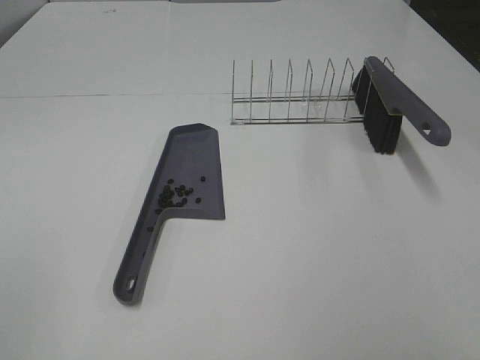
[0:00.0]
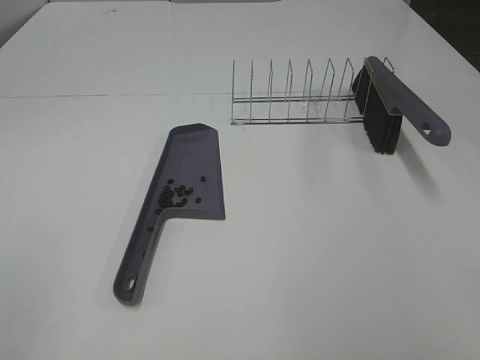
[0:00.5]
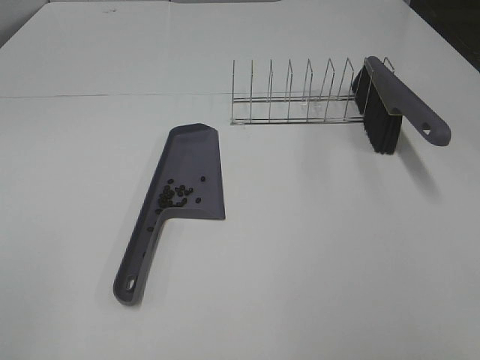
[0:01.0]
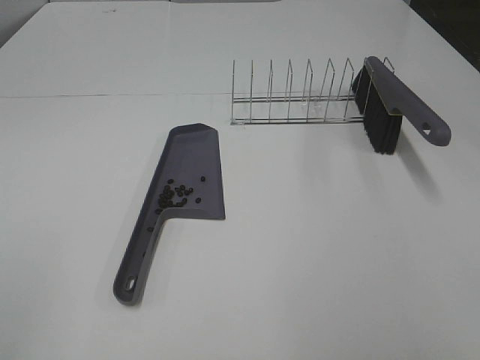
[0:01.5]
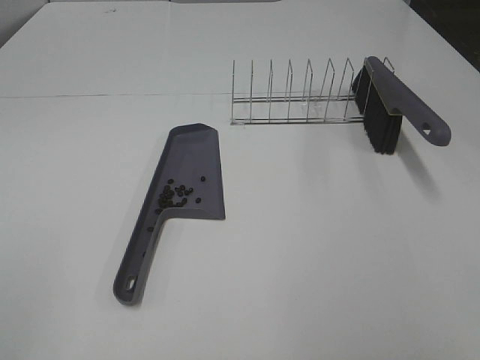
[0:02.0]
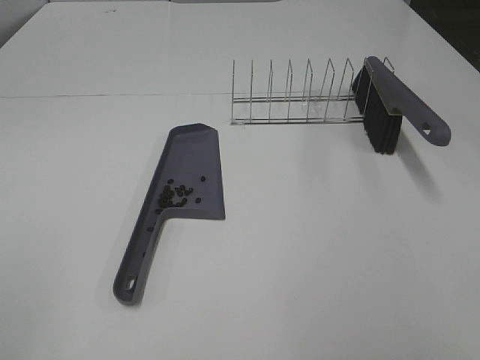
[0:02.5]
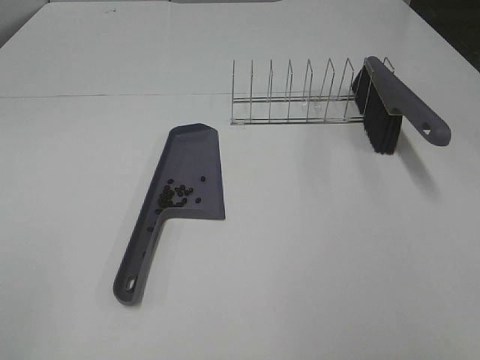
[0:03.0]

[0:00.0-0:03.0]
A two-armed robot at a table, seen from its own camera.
Task of the whole recording: Sweep Coffee Bean.
0:01.5 to 0:03.0: Both grippers stay put.

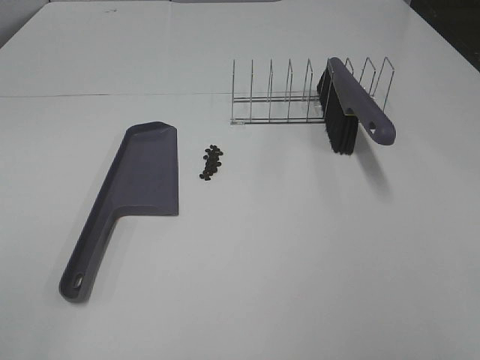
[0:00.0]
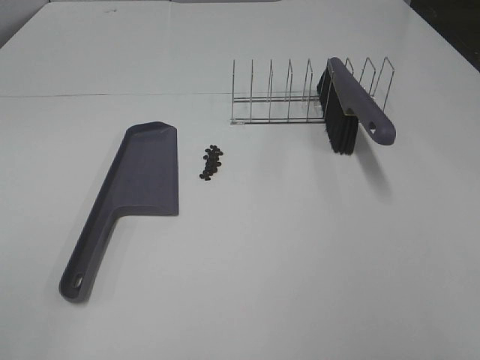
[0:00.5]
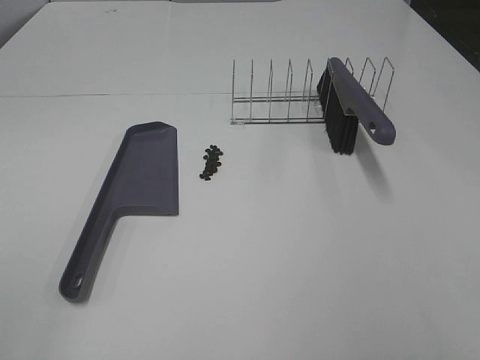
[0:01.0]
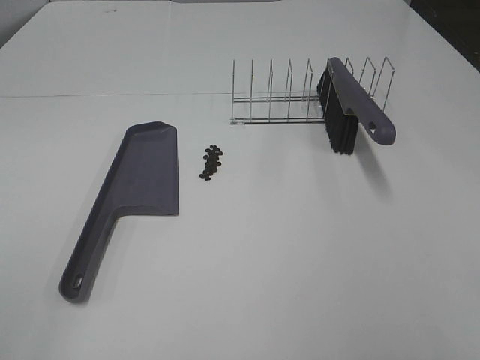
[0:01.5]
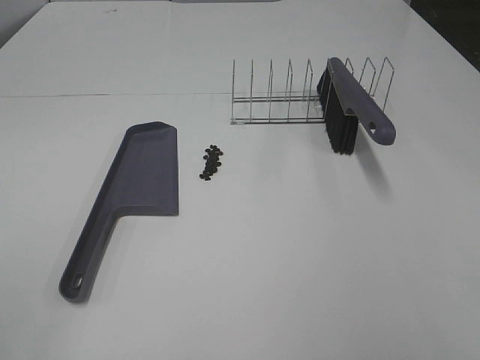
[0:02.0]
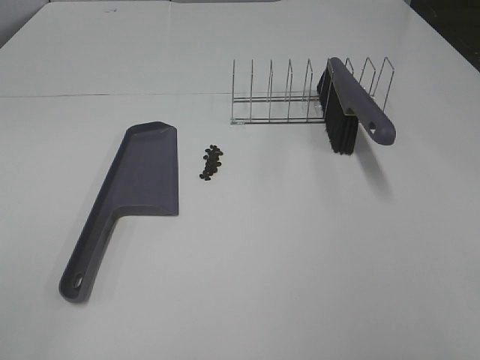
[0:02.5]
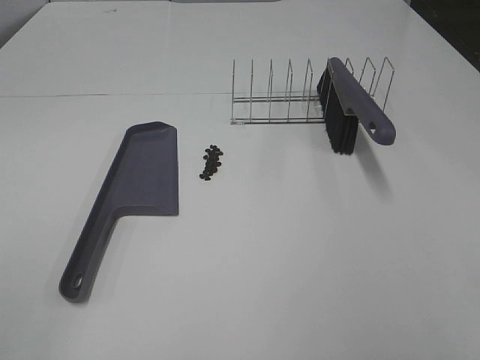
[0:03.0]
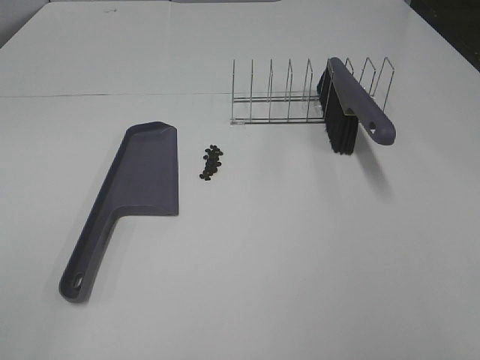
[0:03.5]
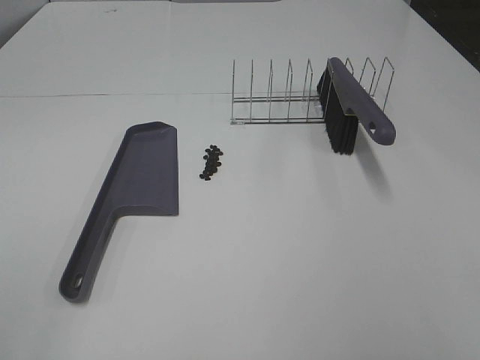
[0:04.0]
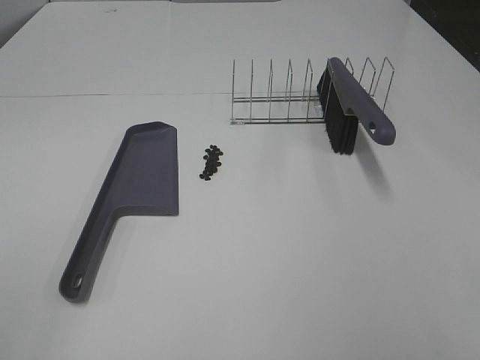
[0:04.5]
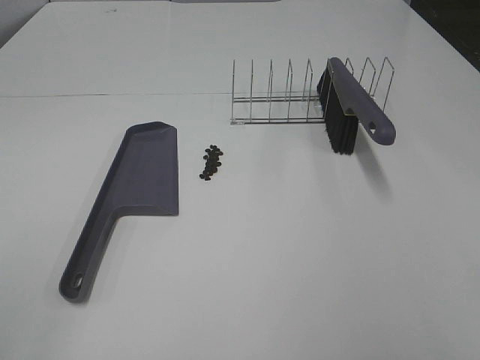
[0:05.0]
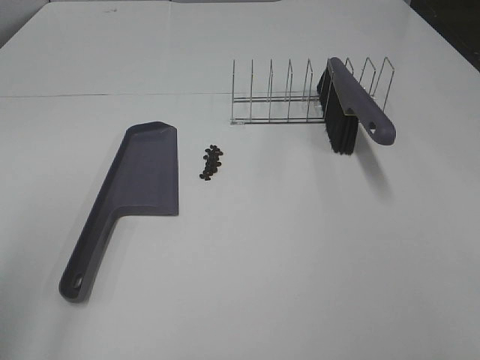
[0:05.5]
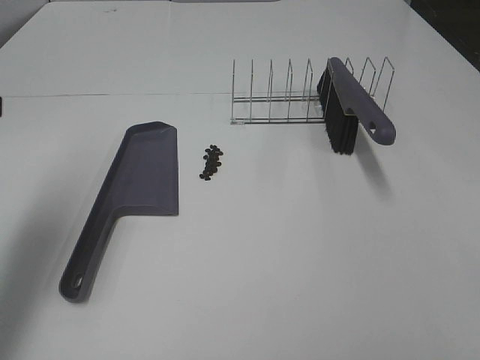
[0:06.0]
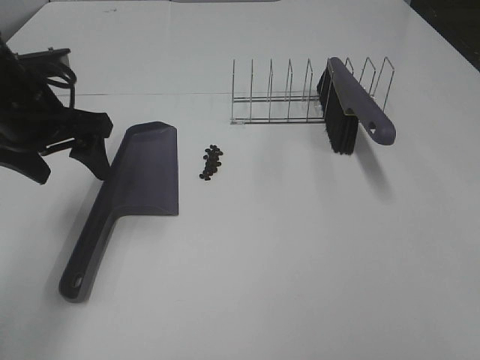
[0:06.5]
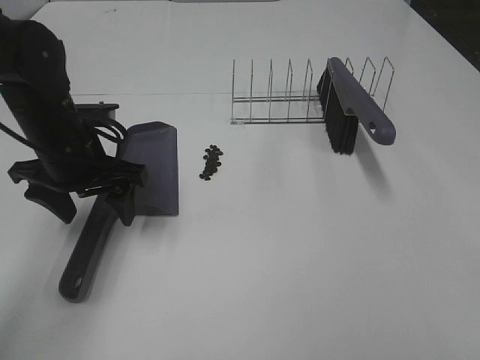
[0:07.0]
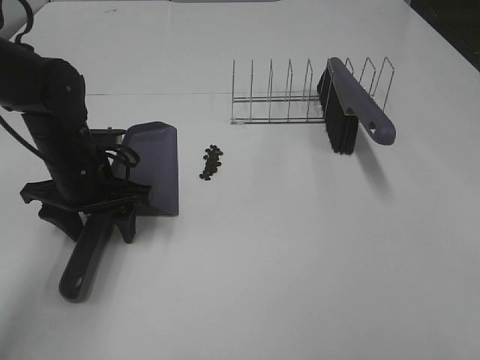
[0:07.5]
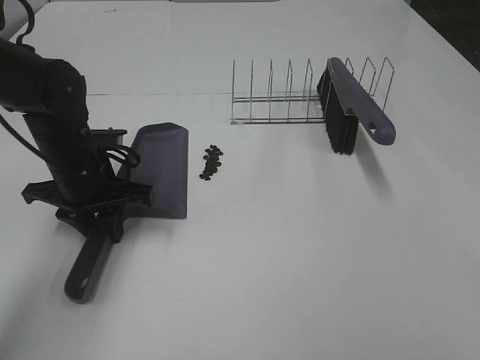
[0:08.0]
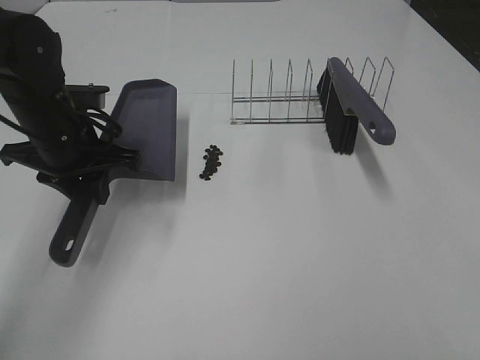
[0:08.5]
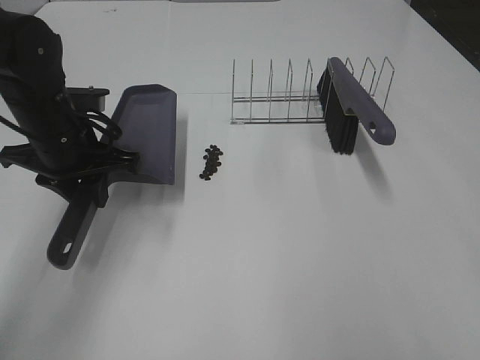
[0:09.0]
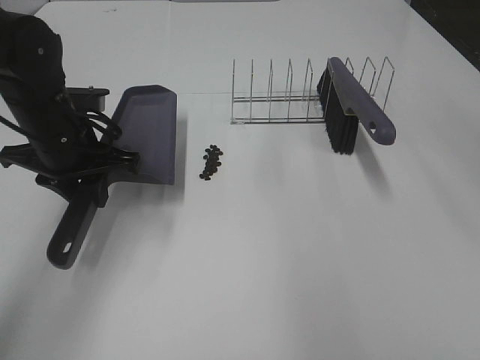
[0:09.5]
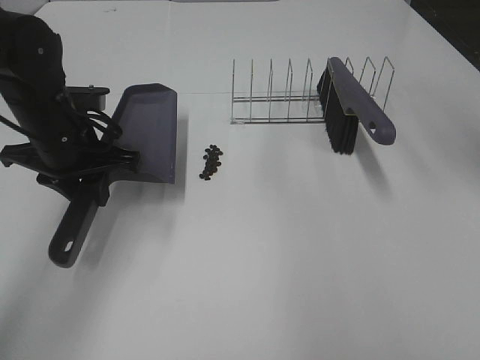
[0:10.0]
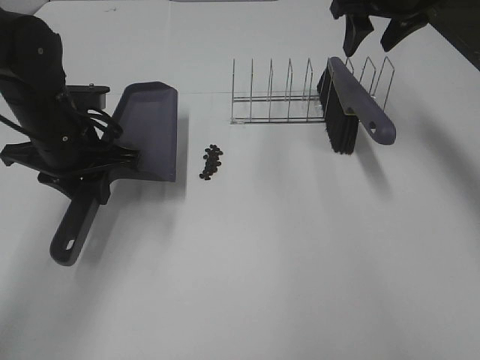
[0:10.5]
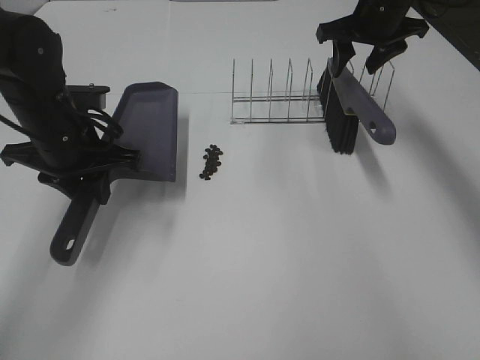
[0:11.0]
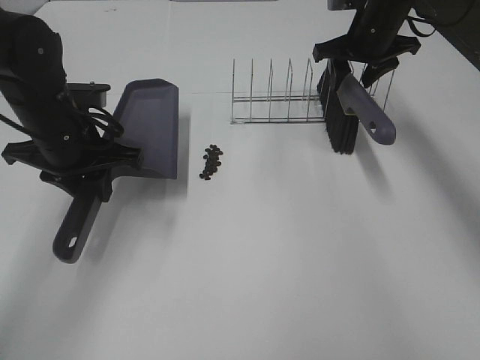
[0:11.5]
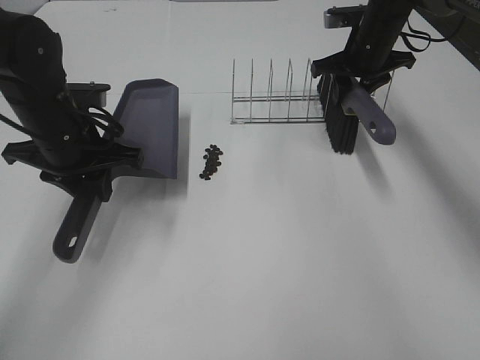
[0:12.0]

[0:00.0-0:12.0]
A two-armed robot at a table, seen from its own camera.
Task of the whole recording: Sweep Coffee Bean.
Step, 0:00.0 to 0:07.5: Left hand: grab the dustpan.
Step, 0:09.0 to 0:12.0: Right hand:grab the broom.
0:00.0 to 0:04.0: Both grippers stay about where they are.
0:04.0 to 0:06.0: The left gripper moves forward, some 25 cm.
0:06.0 to 0:08.0: The left gripper moves downward, to the right and forward, approximately 25 cm, and closes up.
0:08.0 to 0:10.0: The left gripper heads upward, covering roughly 5 cm. The right gripper goes about 40 cm forward.
0:10.0 to 0:12.0: The right gripper is displaced downward and forward by some 25 cm, and closes.

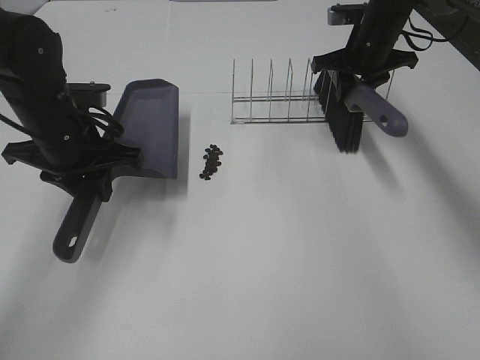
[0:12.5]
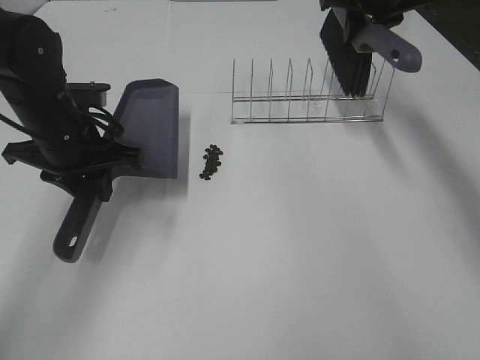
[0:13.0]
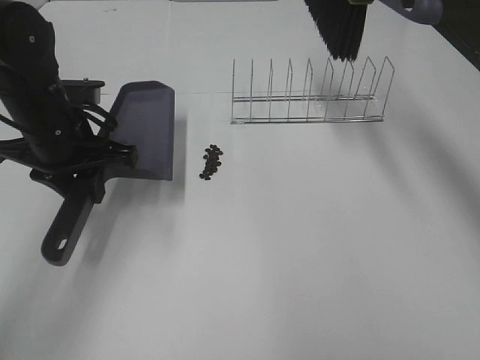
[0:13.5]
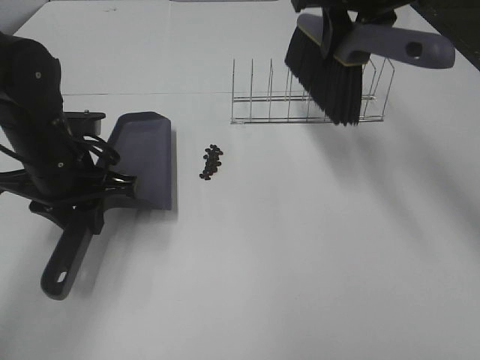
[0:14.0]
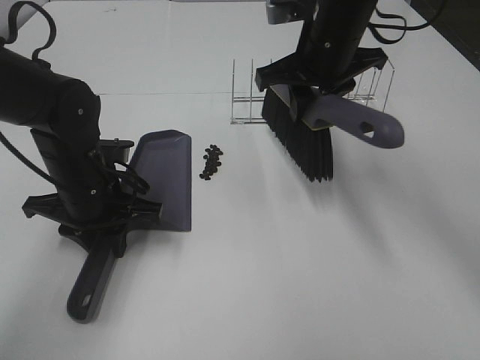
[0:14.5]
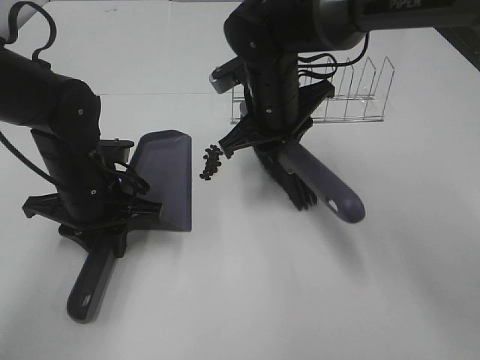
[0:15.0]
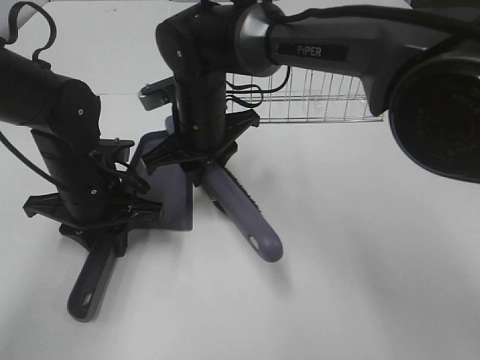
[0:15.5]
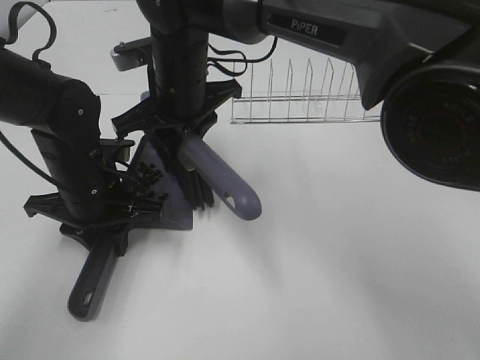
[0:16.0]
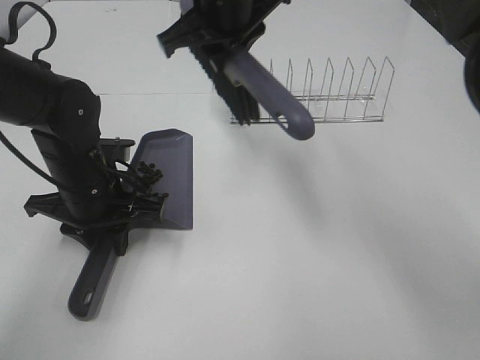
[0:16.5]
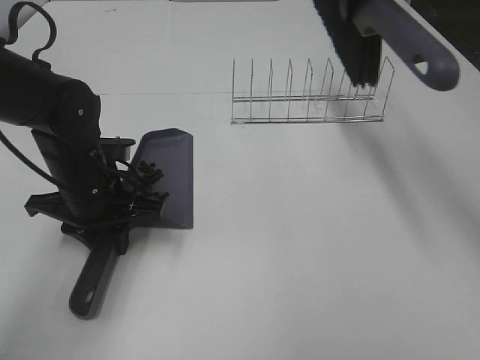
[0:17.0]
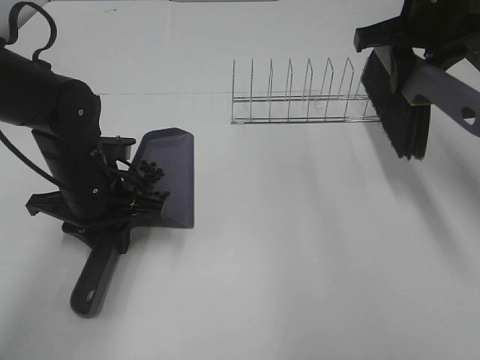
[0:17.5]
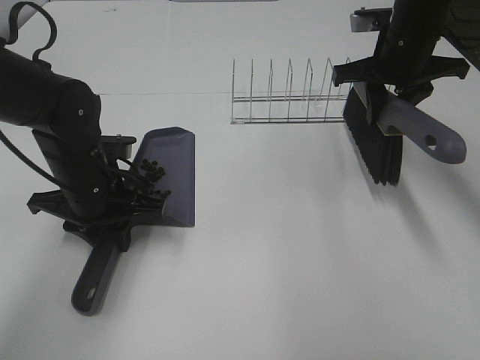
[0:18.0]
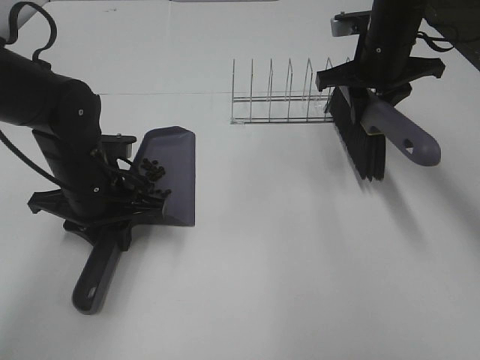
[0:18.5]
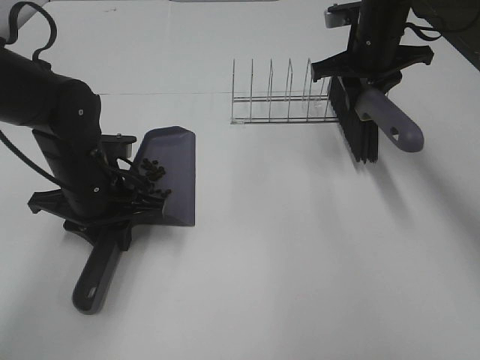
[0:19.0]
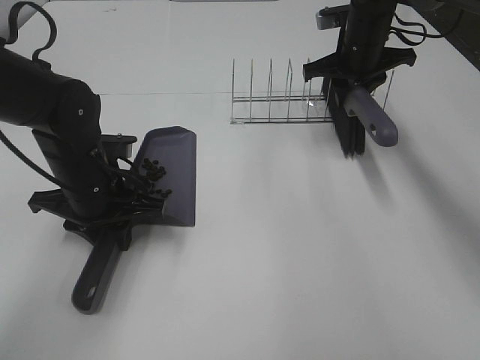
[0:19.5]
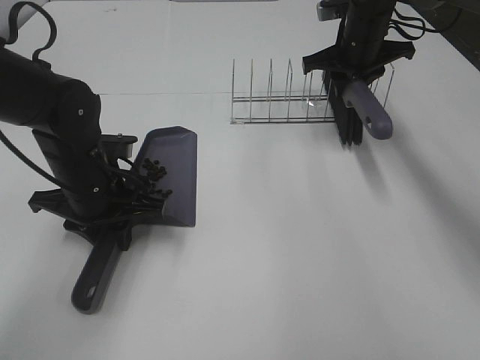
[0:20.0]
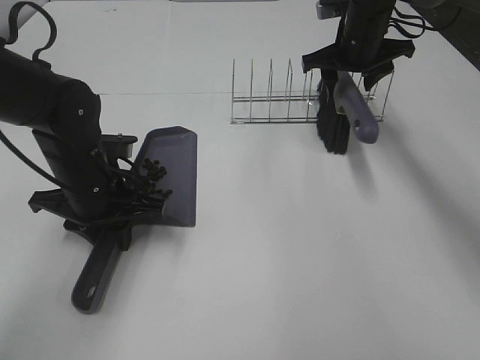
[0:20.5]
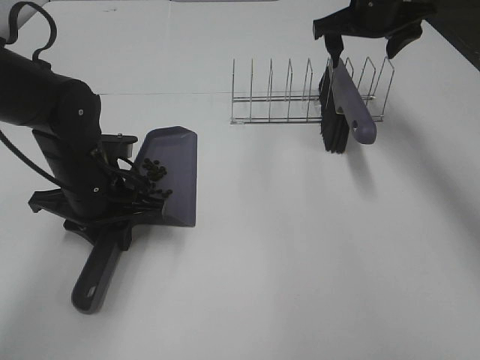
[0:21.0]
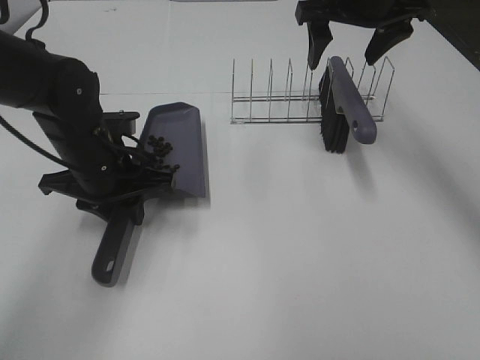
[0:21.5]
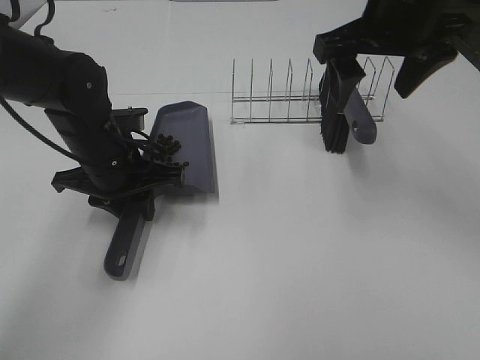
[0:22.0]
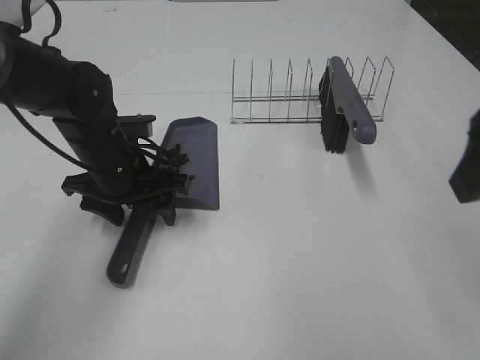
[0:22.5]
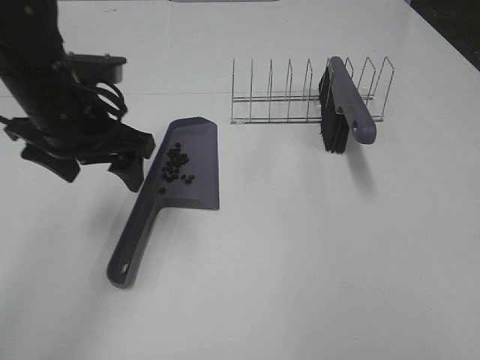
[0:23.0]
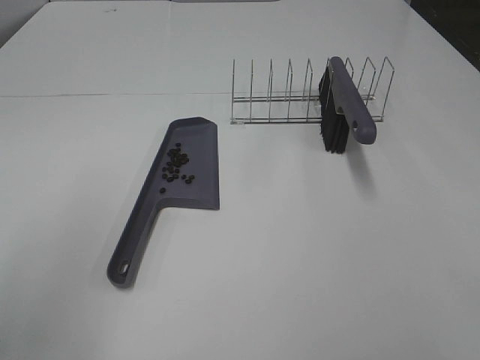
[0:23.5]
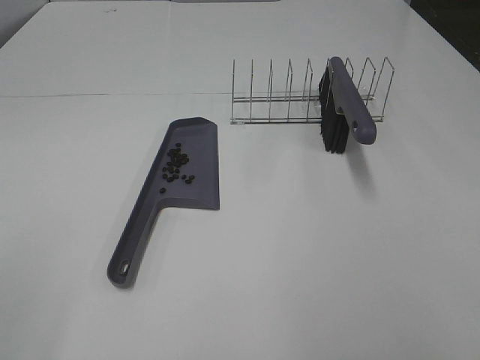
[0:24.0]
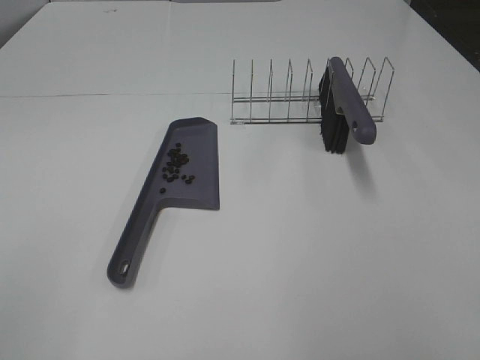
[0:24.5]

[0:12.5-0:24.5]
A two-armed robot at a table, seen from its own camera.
Task of the whole recording: Sweep Coffee Bean.
Step, 0:12.5 to 0:16.0: Right hand:sweep the coffee beans into the dustpan.
Step, 0:16.5 to 0:20.5: Right hand:place the broom on the rack.
Step, 0:21.0 to 0:22.5: Left hand:place the dustpan on the table.
0:12.5 to 0:14.5: The right gripper shifts some 15 cm backward and to the left, and moves approximately 15 cm upward and comes back. The left gripper shifts some 5 cm downward.
0:14.5 to 0:16.5: The right gripper moves to the left and upward, roughly 10 cm.
0:16.5 to 0:18.5: The right gripper travels to the right and downward by roughly 20 cm.
0:18.5 to 0:20.5: The right gripper is displaced forward by roughly 5 cm, and opens.
0:20.5 to 0:22.5: The left gripper opens its fingers. Meanwhile the right gripper is displaced backward by approximately 35 cm, and opens its fingers.
0:22.5 to 0:24.5: The left gripper heads backward, upward and to the left, covering approximately 40 cm. Meanwhile the right gripper moves backward, about 15 cm.
